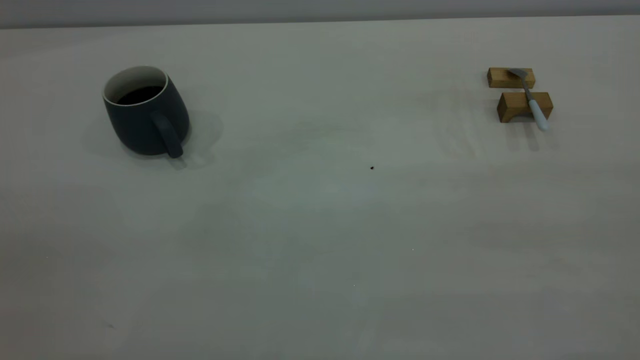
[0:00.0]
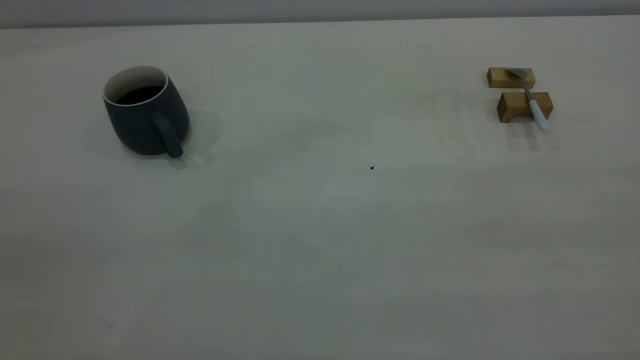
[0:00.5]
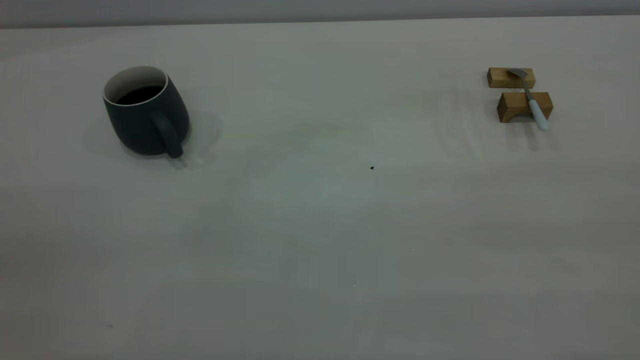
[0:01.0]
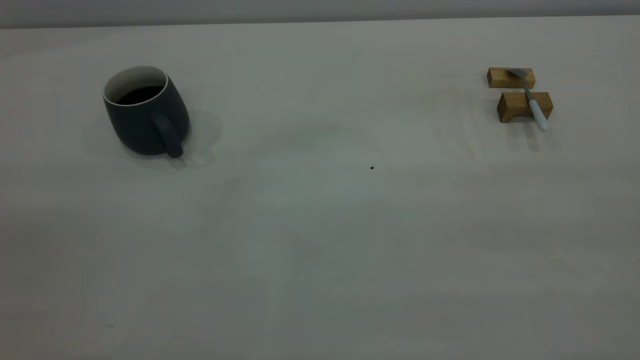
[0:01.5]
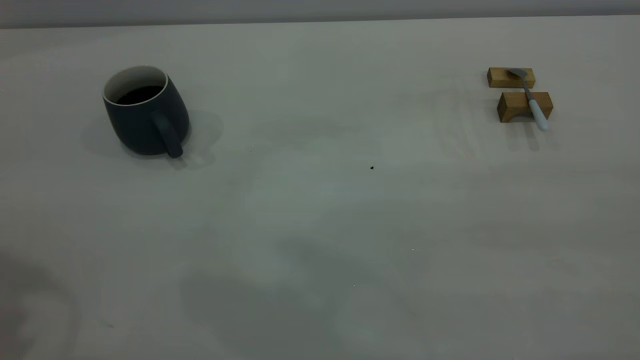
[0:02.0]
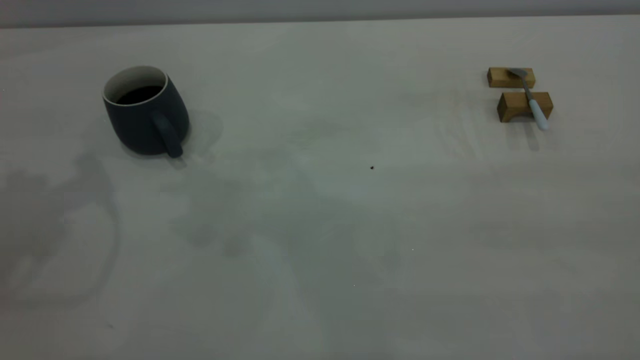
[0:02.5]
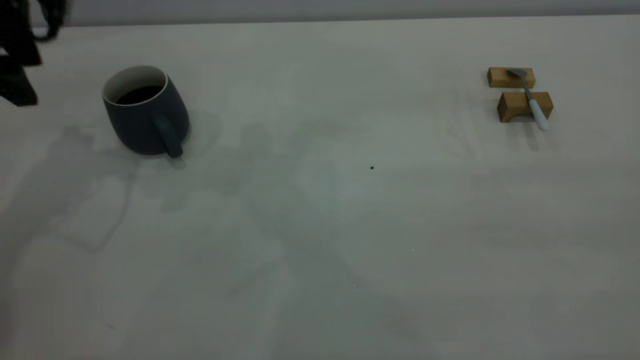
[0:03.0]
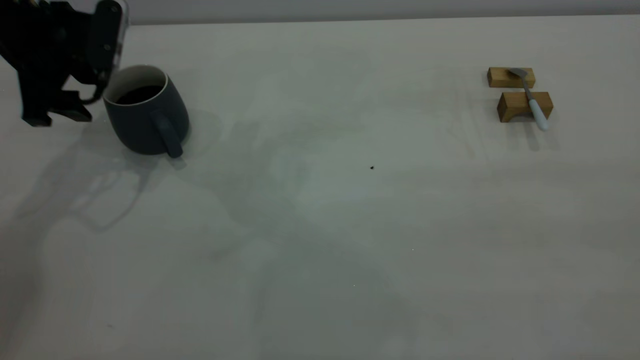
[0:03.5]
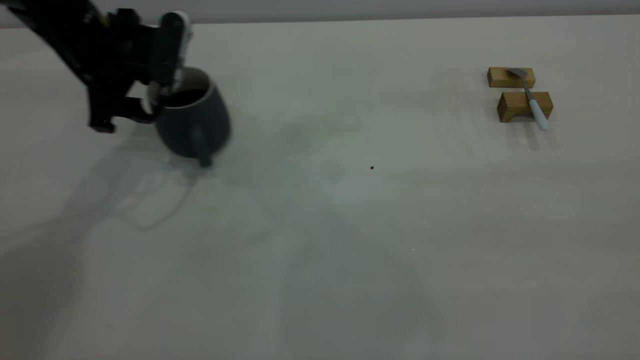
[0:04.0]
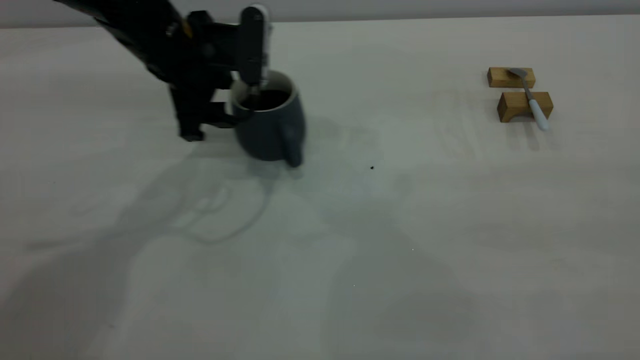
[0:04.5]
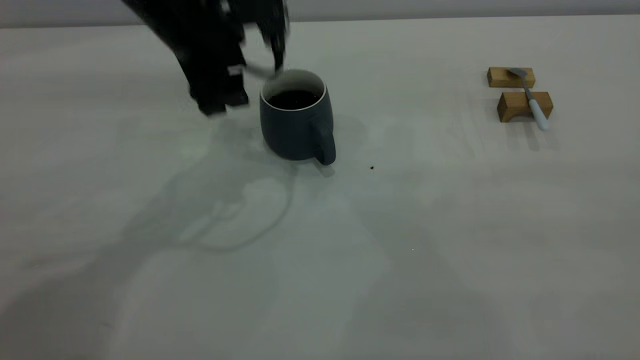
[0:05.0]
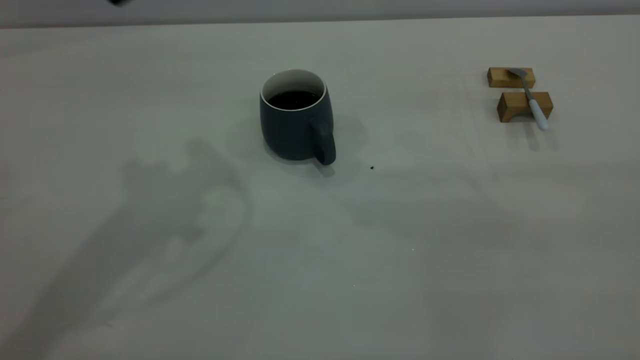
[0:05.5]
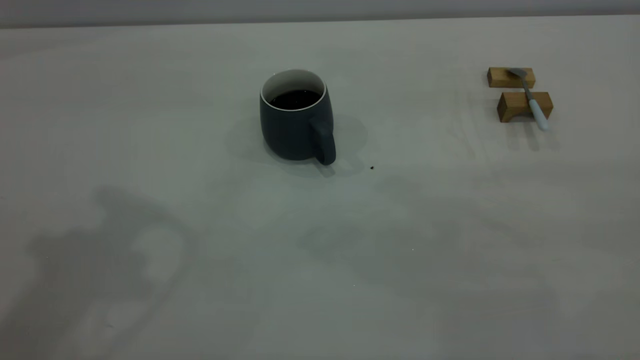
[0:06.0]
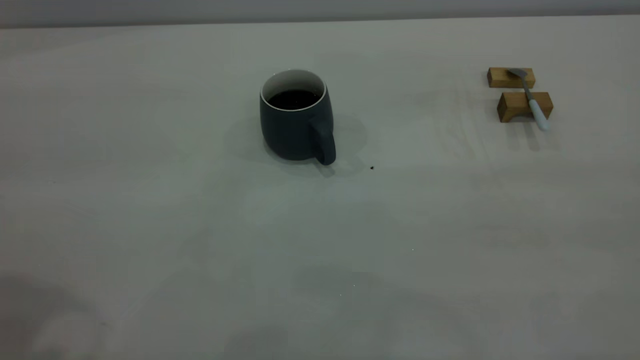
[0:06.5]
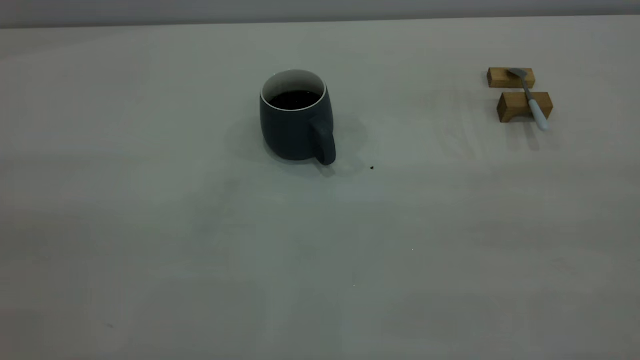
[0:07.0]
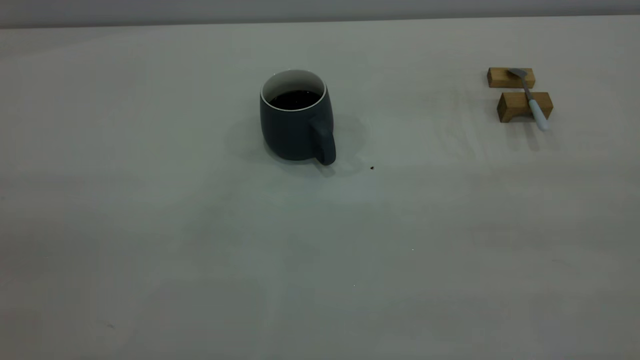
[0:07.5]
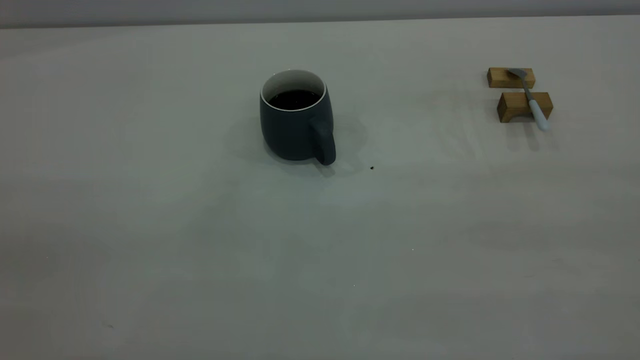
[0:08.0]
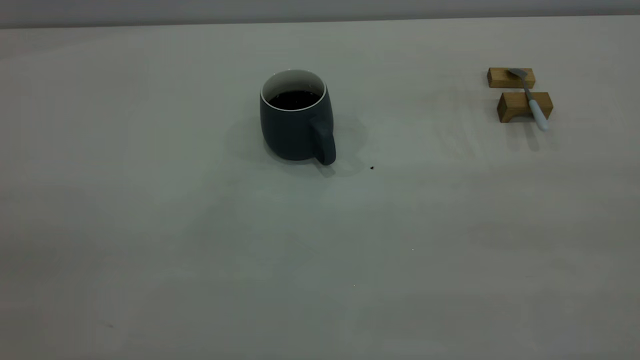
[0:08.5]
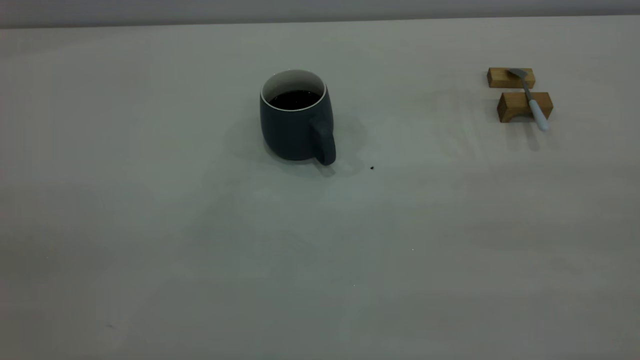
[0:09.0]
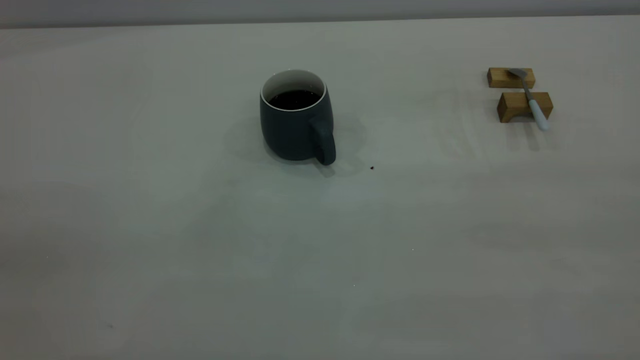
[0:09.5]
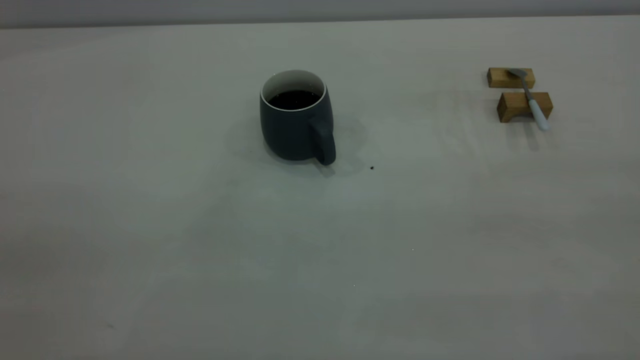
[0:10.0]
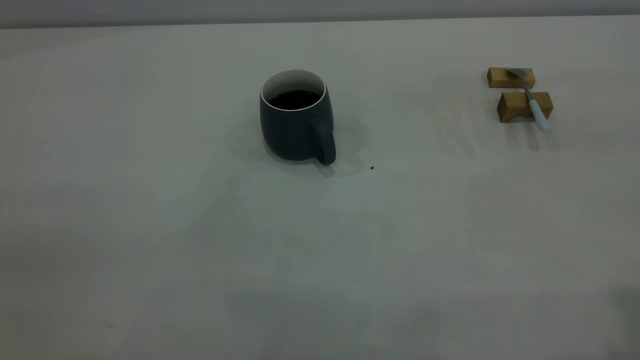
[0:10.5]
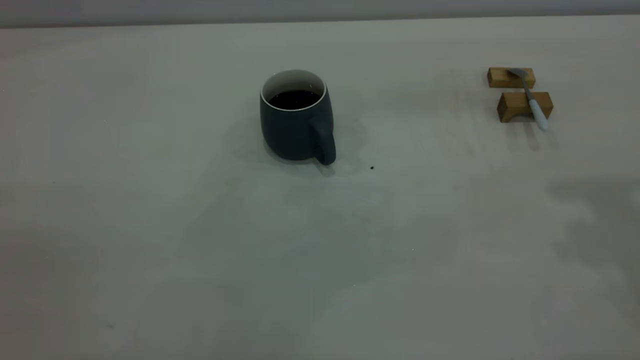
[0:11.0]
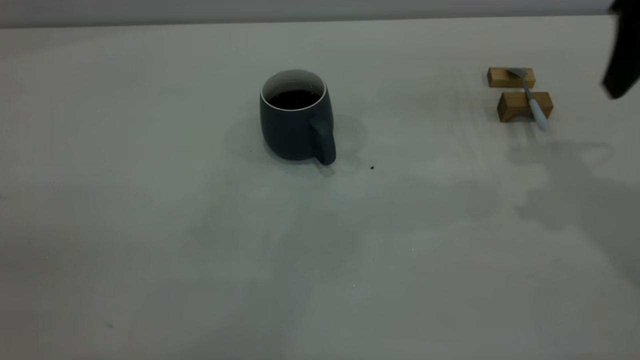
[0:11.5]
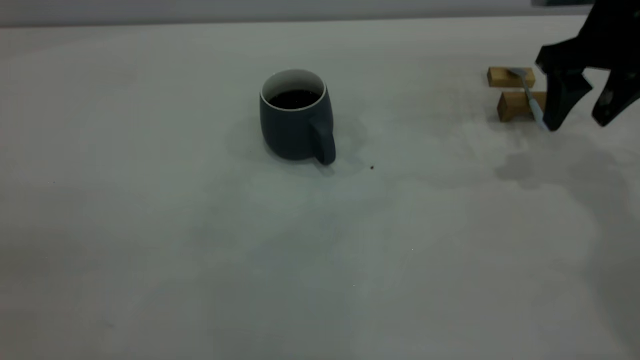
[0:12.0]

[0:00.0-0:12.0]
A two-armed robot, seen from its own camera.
Step, 0:00.0 to 0:05.0: Move the cup with coffee to the center of view.
0:02.0 to 0:04.0: The left gripper travels downward and forward by approximately 35 cm.
0:04.0 to 0:06.0: The left gripper travels upward and backward by roughly 35 cm.
0:08.0 to 0:10.0: Neither gripper changes place.
0:10.0 to 0:12.0: The right gripper goes some 40 cm forward and downward, and opens its fingers.

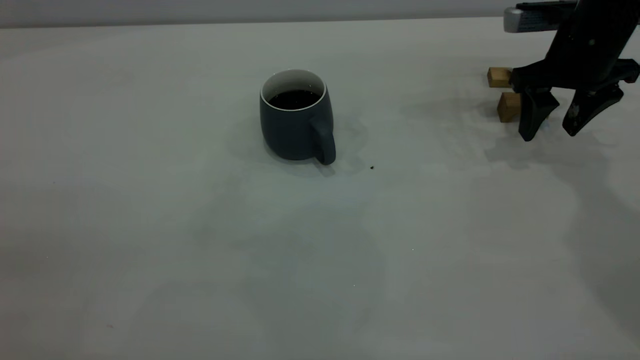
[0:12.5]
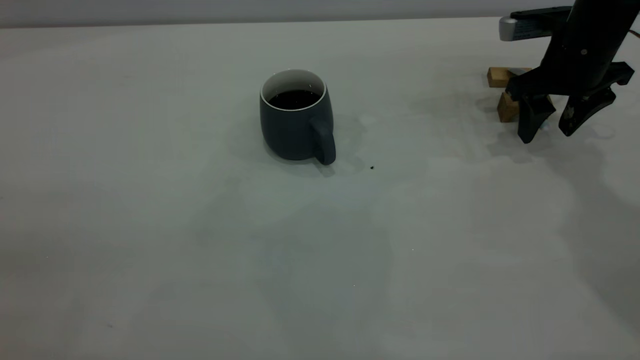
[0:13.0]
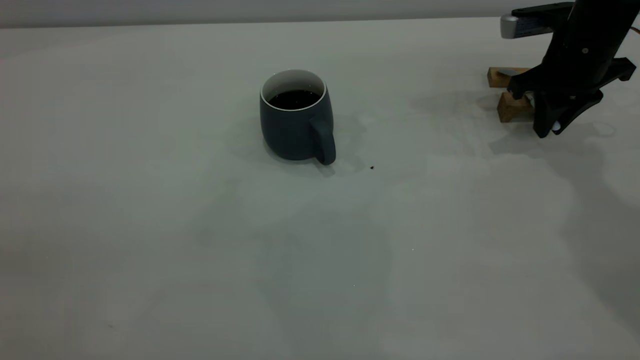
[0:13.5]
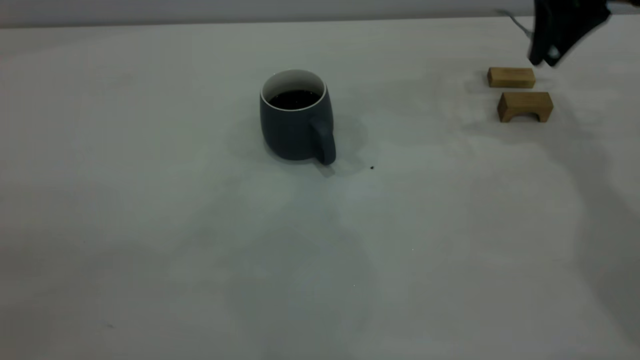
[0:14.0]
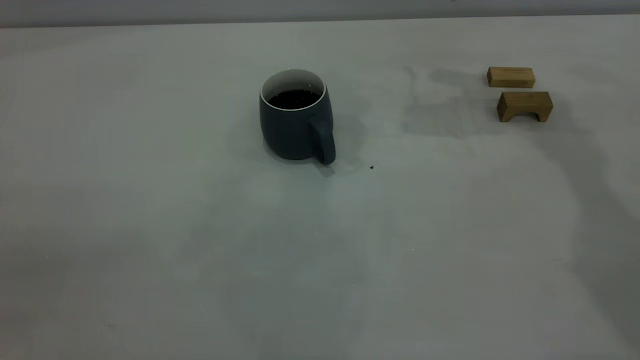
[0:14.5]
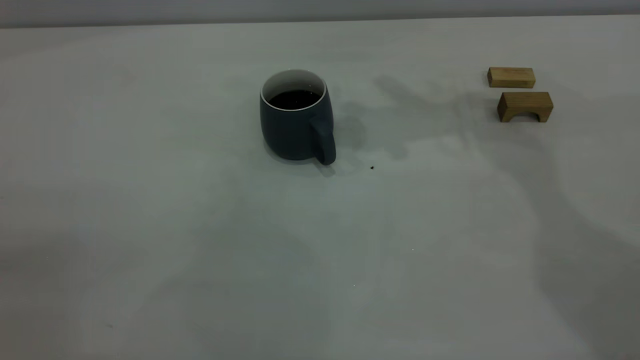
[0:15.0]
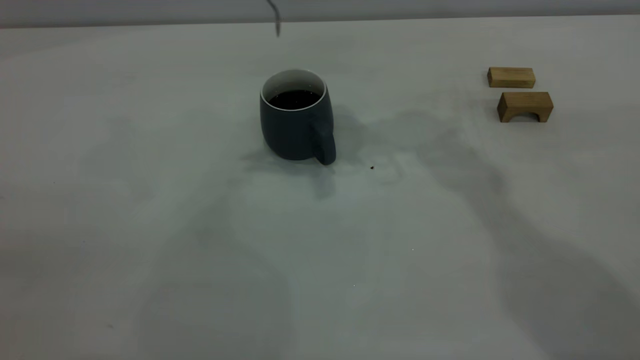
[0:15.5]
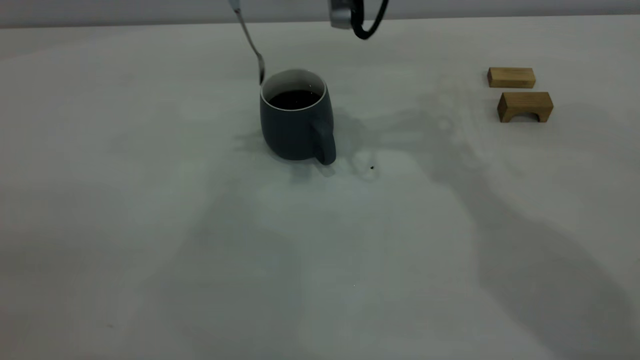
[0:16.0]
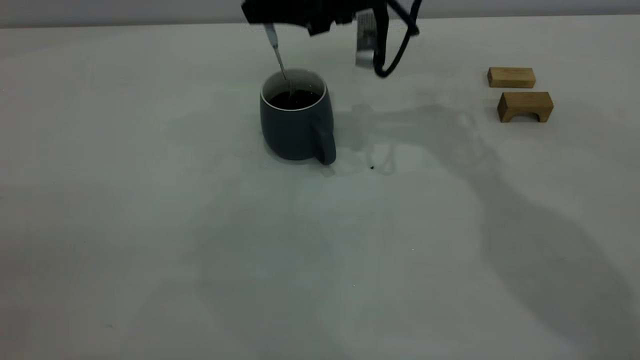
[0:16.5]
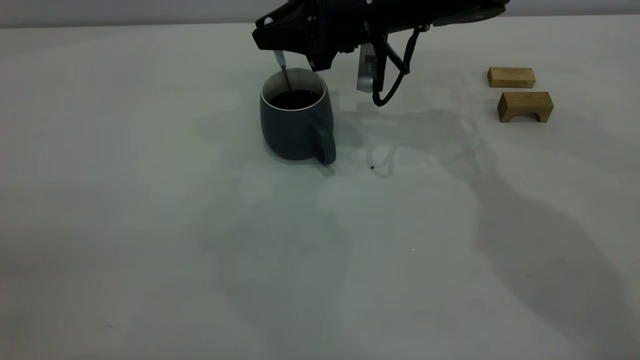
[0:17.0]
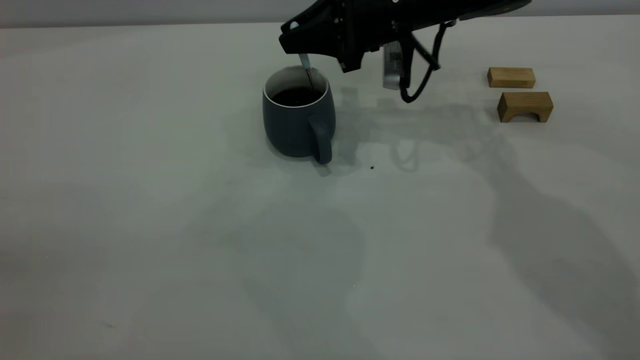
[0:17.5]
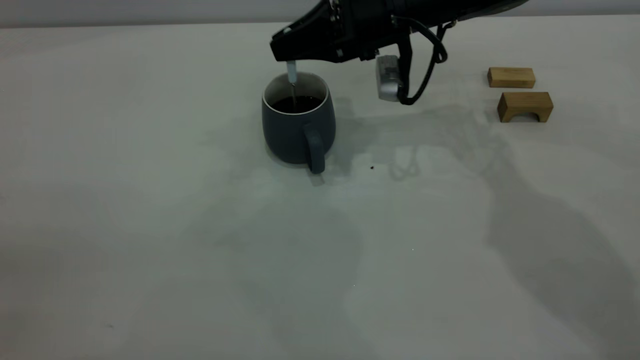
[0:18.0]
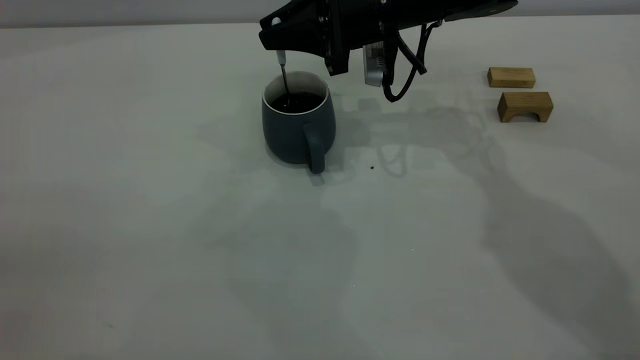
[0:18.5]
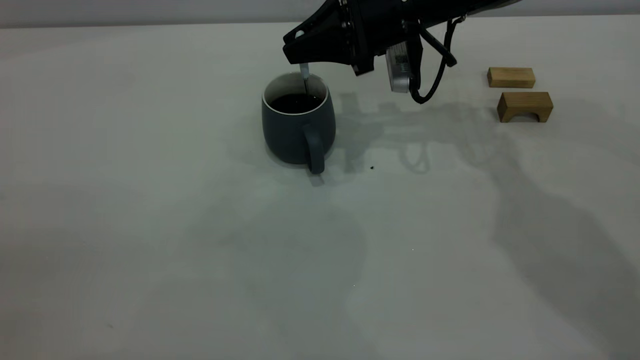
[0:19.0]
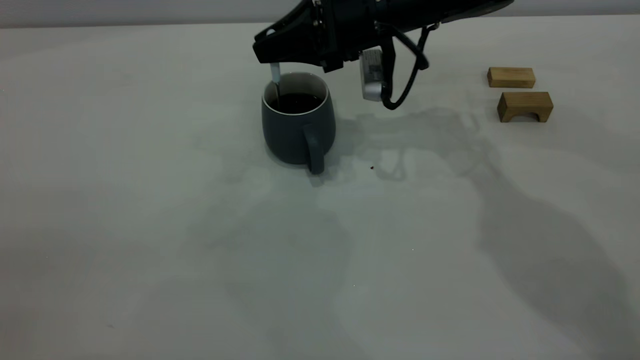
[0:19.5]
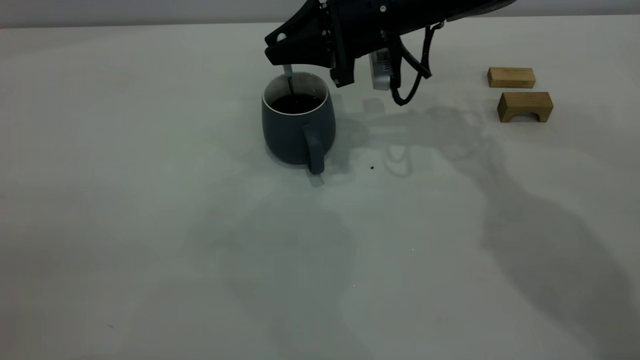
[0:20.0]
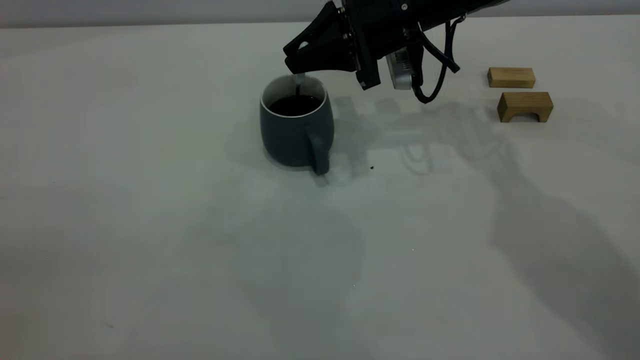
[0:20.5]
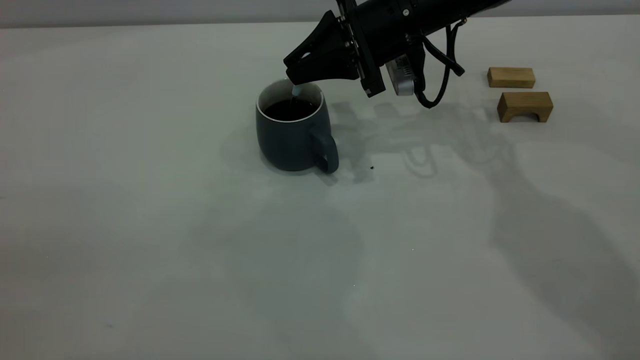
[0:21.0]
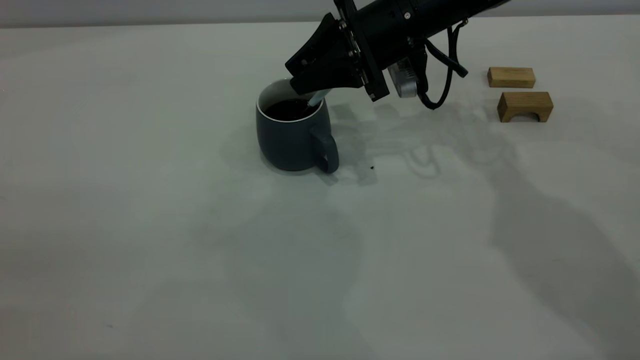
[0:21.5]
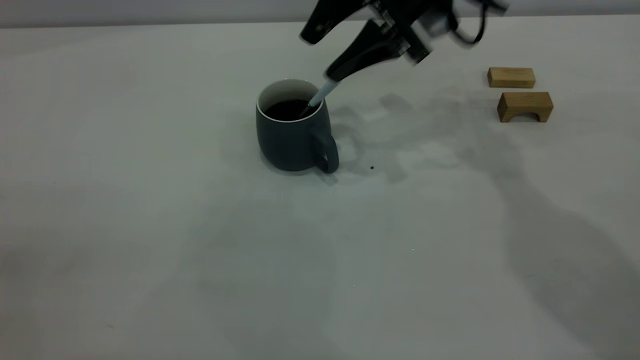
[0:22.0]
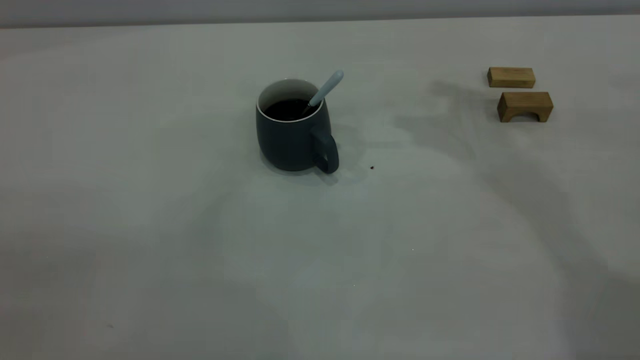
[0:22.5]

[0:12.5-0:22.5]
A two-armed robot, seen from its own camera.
Step, 0:14.0 to 0:22.0: Stir the coffee in the cup.
0:12.5 to 0:14.5: The right gripper shifts approximately 15 cm upward and to the left, and closes up.
0:14.5 to 0:16.5: The right gripper moves to the left and downward, roughly 15 cm.
0:16.5 to 0:20.5: The grippers make only small movements.
0:20.5 to 0:22.5: The right gripper travels upward by approximately 25 cm, and opens up.
